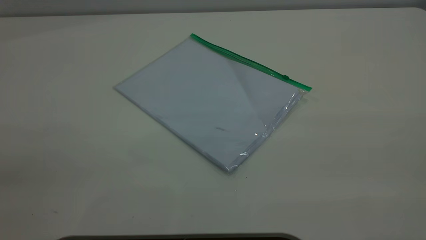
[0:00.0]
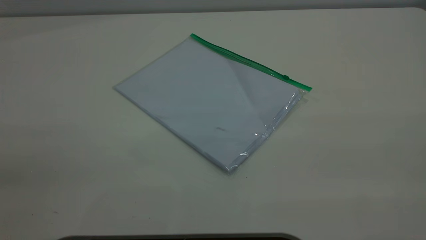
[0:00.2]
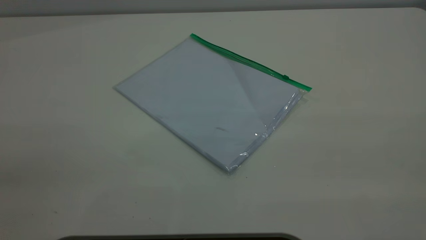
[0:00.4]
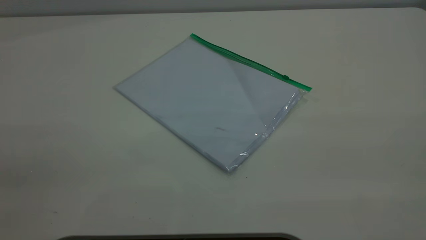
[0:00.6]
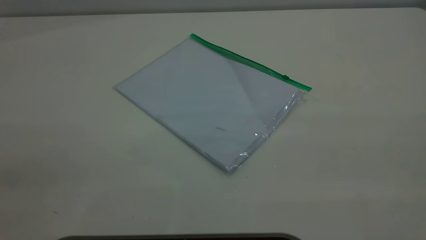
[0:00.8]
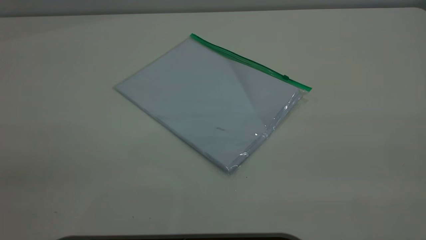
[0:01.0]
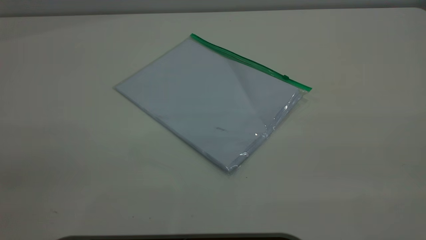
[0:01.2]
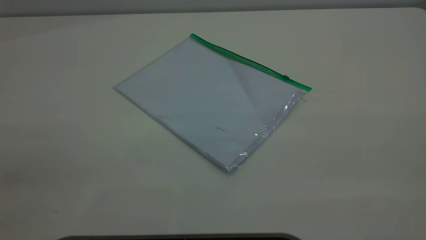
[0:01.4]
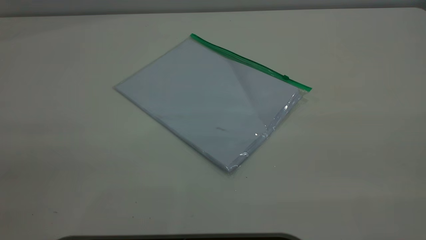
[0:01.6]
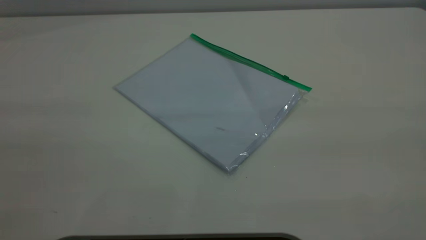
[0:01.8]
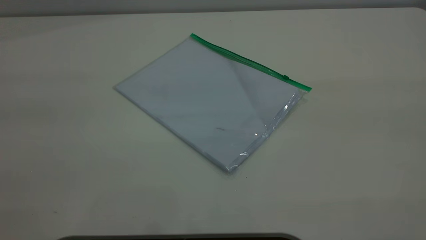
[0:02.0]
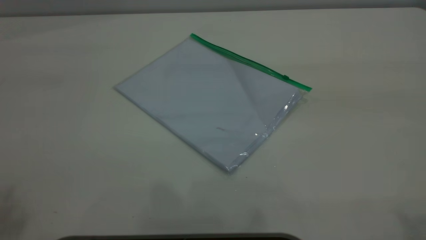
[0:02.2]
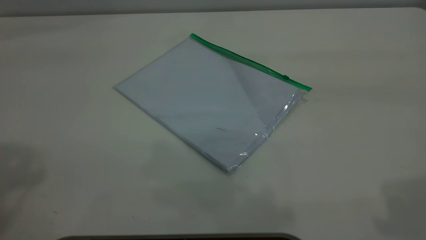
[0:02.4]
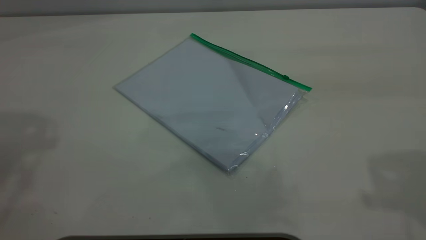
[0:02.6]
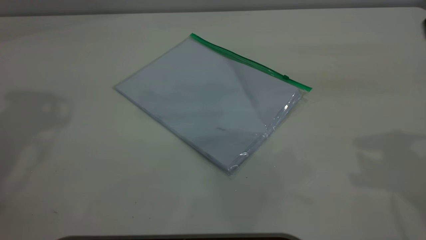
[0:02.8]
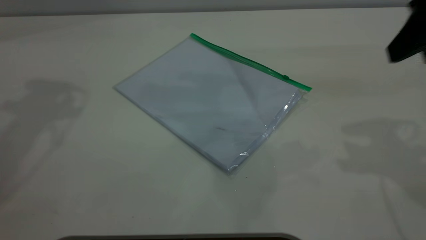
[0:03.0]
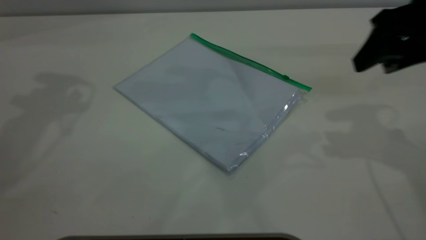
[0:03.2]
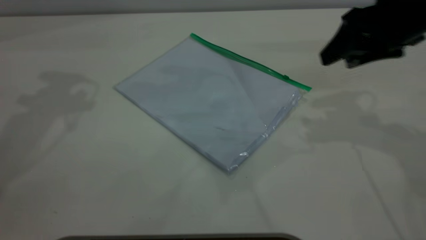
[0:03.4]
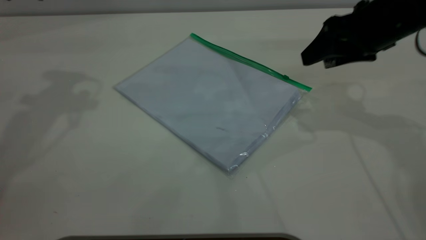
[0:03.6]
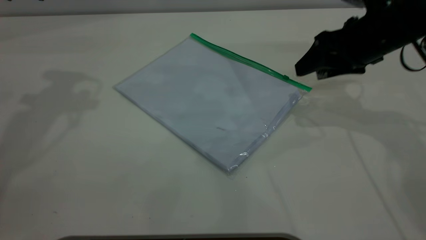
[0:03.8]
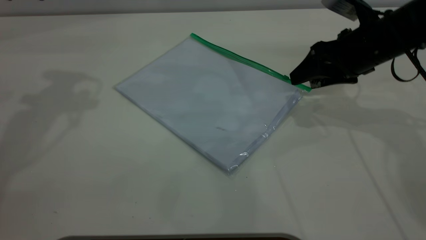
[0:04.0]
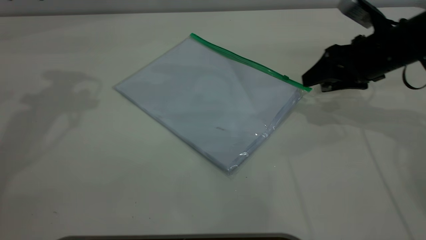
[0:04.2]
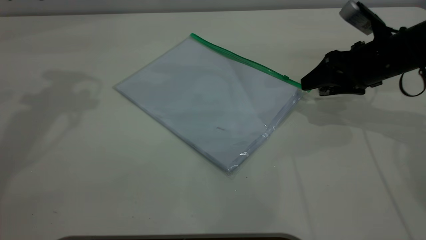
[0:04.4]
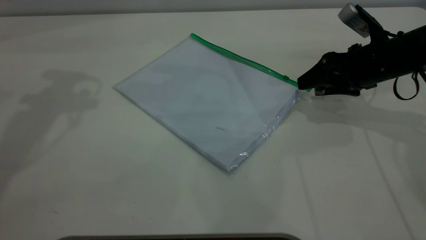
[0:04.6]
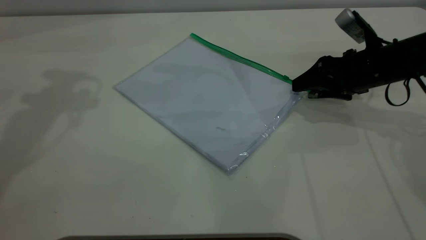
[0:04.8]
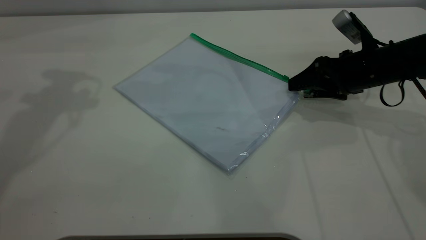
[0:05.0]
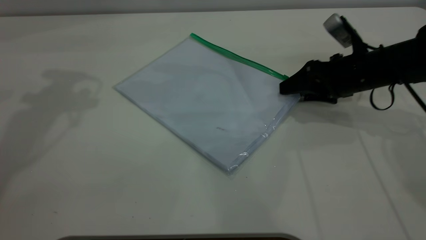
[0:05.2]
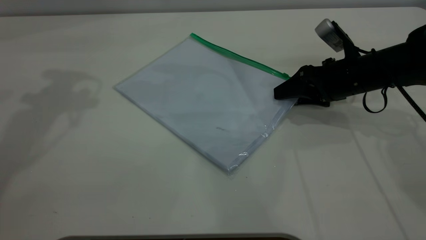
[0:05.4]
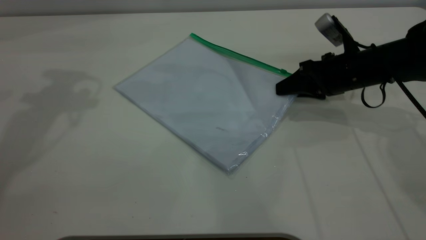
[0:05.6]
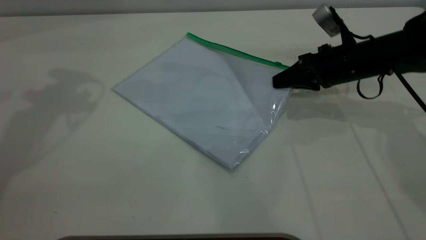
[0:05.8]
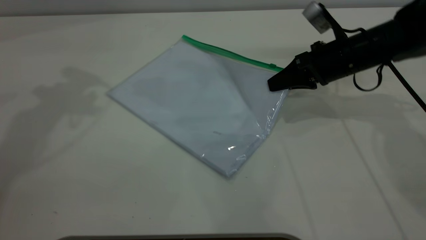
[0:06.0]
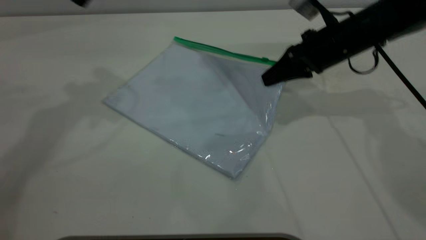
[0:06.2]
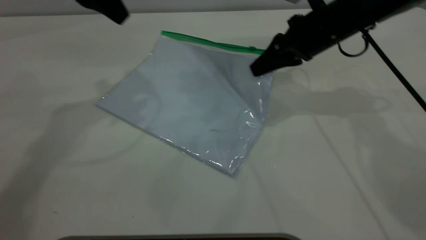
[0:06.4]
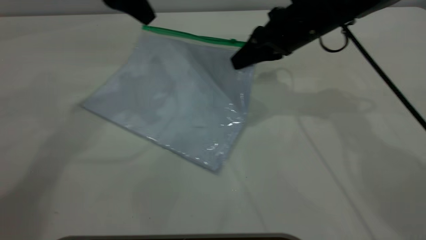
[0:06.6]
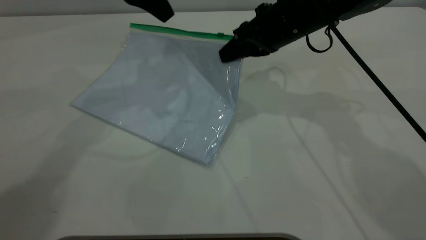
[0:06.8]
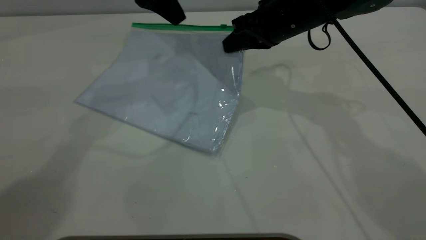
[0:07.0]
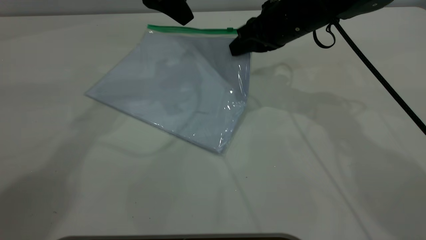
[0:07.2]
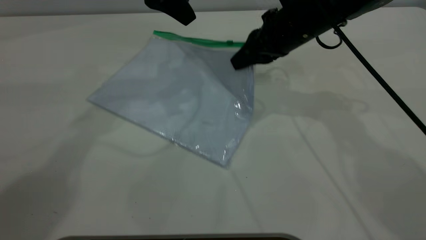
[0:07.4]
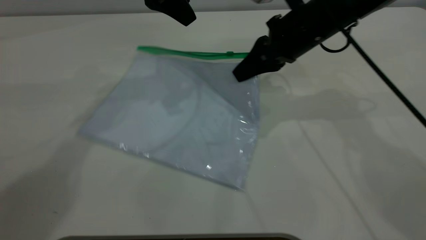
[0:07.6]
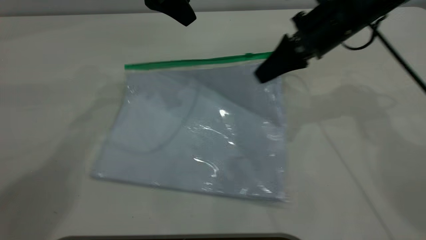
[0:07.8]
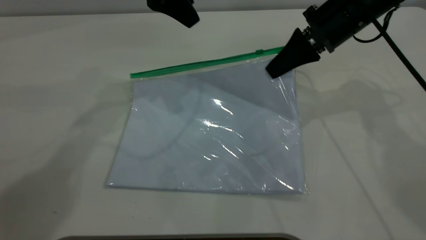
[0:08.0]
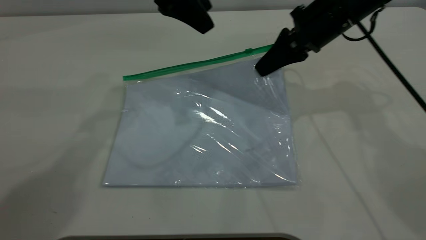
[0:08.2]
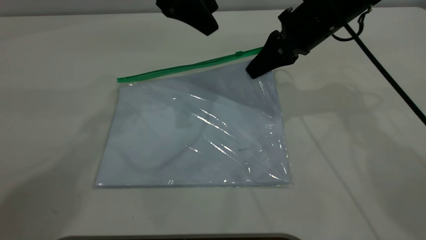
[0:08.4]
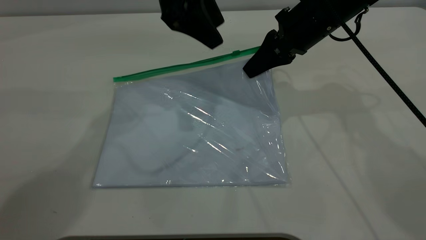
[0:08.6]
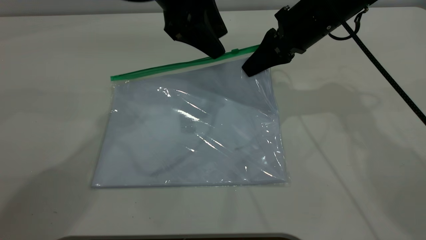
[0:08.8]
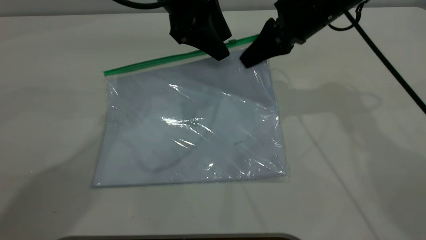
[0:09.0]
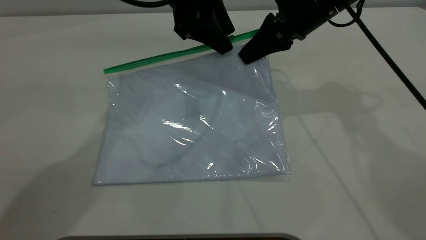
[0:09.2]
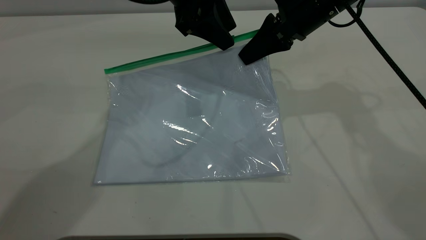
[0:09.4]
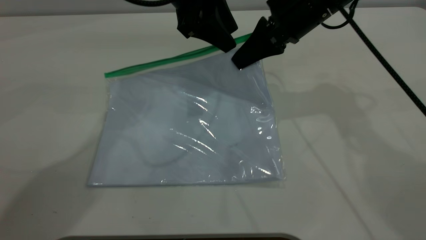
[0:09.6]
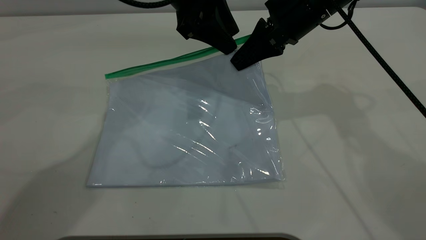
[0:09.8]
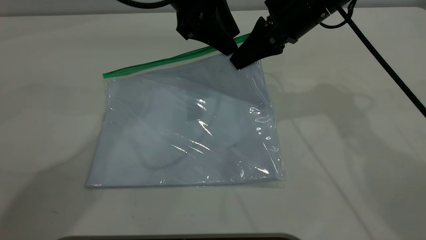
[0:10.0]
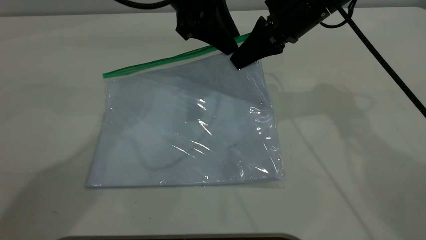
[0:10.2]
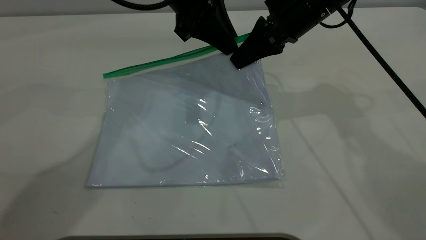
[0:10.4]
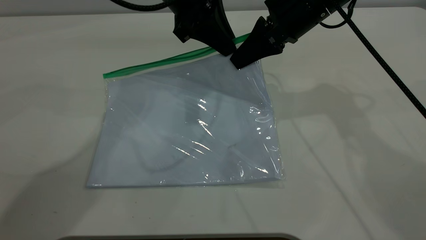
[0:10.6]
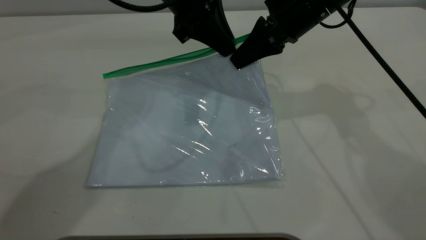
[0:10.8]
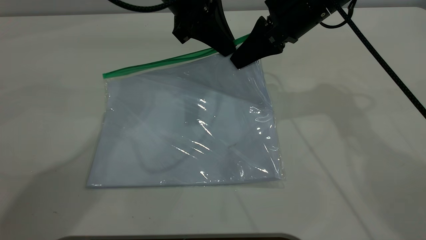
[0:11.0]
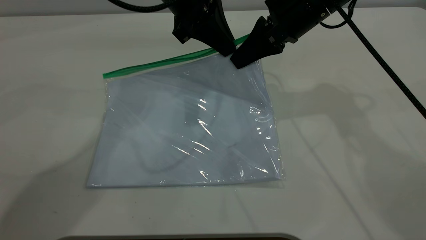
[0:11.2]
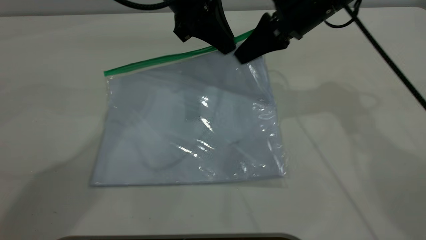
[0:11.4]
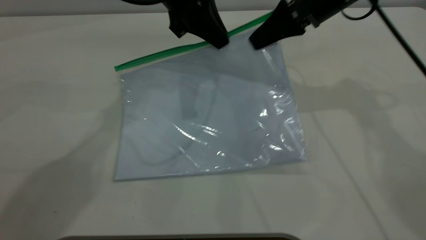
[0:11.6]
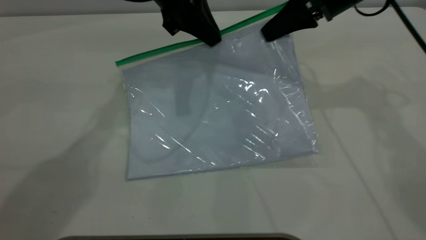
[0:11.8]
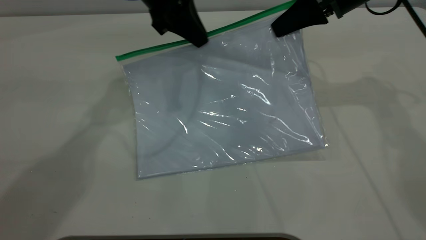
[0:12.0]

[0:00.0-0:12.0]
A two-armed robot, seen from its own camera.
Step, 0:00.0 to 0:07.8: Pick up the transparent plastic bag with the right gripper.
0:00.0 to 0:01.6: The two grippers keep their place.
0:01.6 to 0:03.0: The right gripper travels forward by roughly 30 cm.
0:03.0 to 0:04.4: The right gripper goes approximately 20 cm downward and forward.
0:04.4 to 0:06.0: The right gripper heads to the left, covering approximately 5 cm, and closes up.
0:06.0 to 0:07.6: The right gripper is displaced to the left and upward by some 10 cm. The left gripper travels to the right by approximately 15 cm.
0:07.6 to 0:09.0: The left gripper moves about 5 cm.
0:09.0 to 0:10.4: The left gripper closes its fingers.
0:10.4 to 0:12.0: The left gripper ends up roughly 5 cm from where it was. The right gripper moves to the right, some 10 cm.

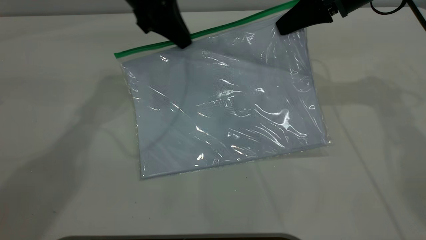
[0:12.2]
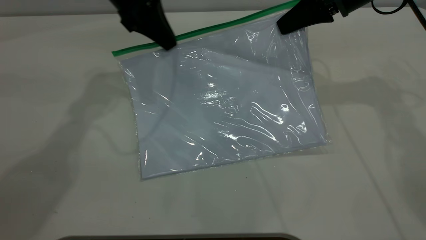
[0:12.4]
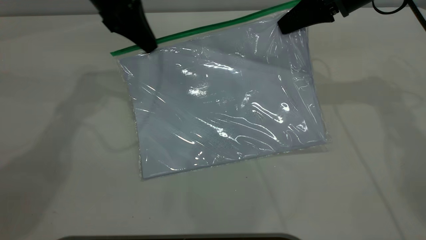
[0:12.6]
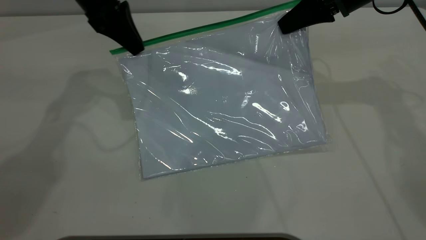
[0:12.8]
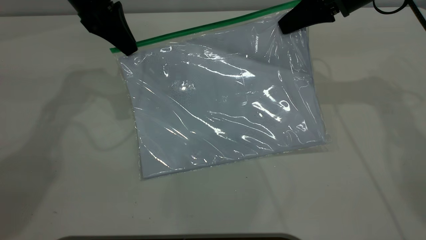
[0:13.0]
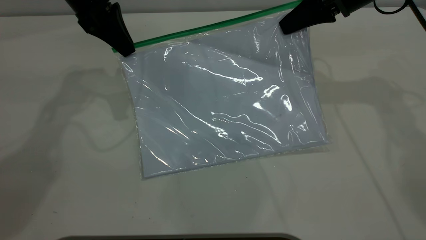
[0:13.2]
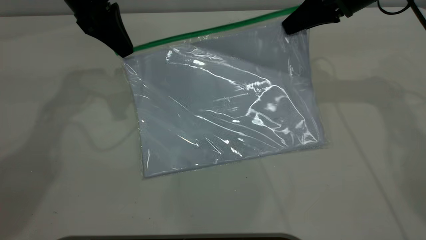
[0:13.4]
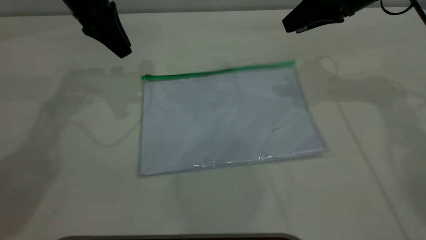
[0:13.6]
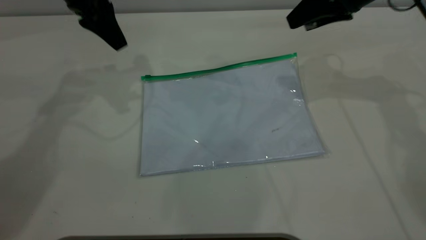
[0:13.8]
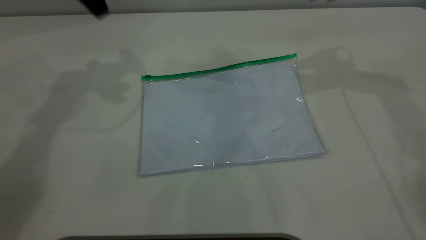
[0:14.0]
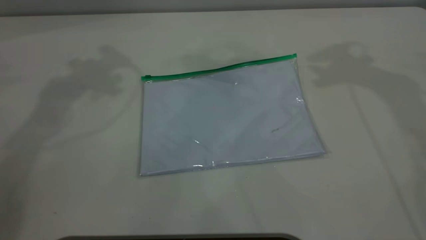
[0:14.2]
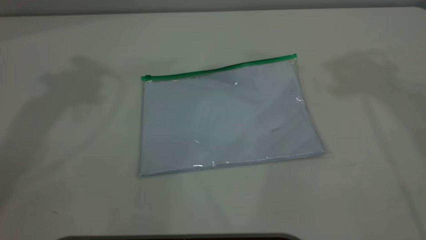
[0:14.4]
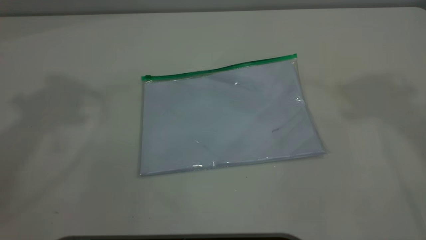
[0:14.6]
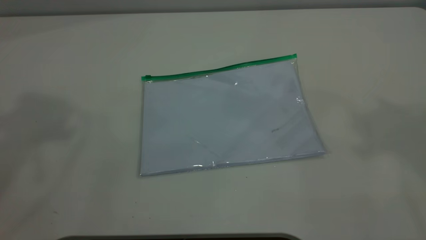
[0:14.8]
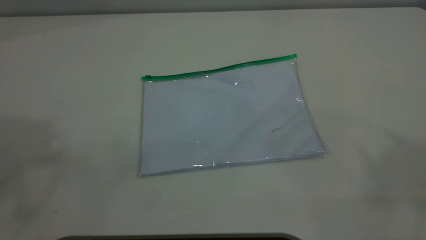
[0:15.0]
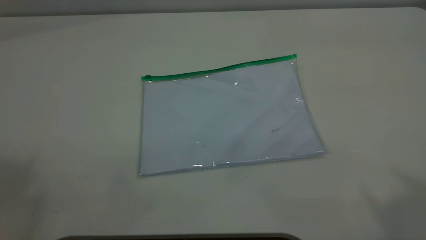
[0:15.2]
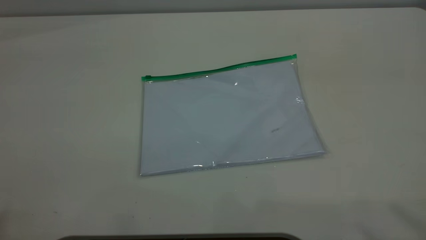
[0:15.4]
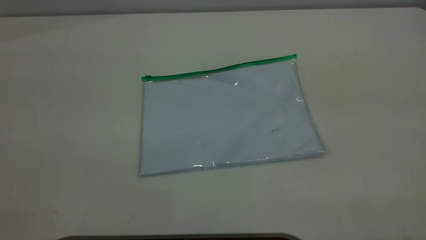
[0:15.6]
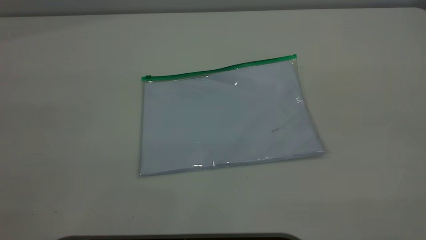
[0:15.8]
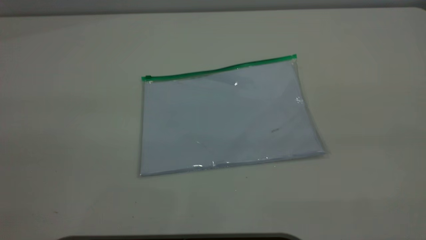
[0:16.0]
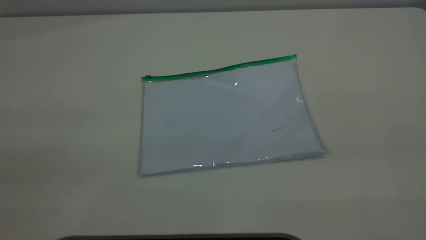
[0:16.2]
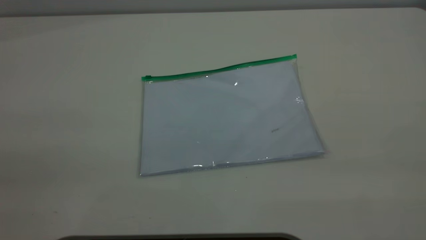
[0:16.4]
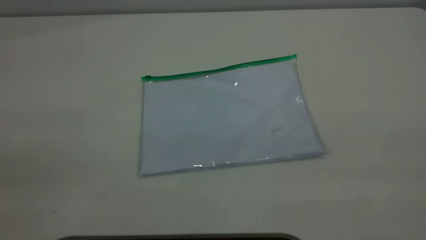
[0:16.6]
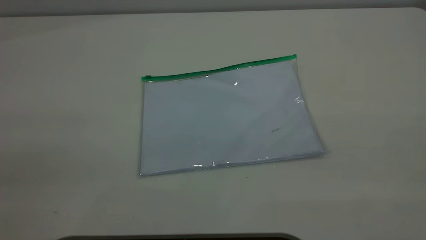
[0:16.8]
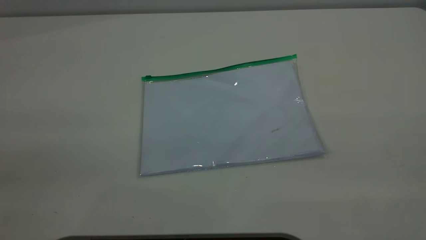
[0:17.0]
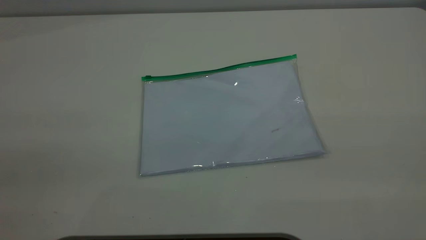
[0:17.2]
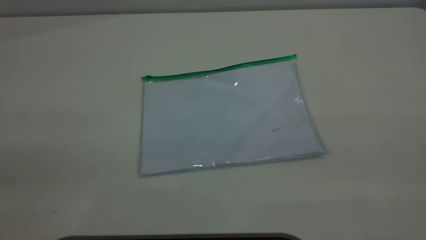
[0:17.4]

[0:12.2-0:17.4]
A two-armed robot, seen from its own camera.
Step, 0:13.4 to 0:14.2: Place the transparent plastic bag.
0:12.2 to 0:14.0: The right gripper travels upward by approximately 10 cm, and opens its fingers. Meanwhile the left gripper moves to the left and upward, about 15 cm, and opens.
0:14.0 to 0:15.6: The left gripper moves backward and upward, about 50 cm.
